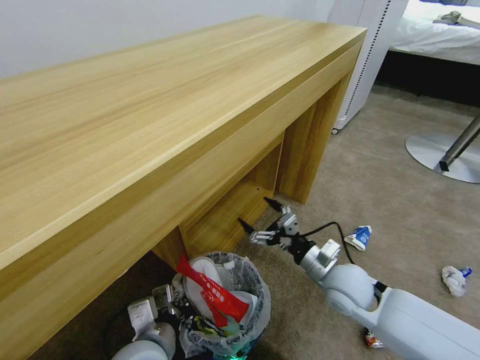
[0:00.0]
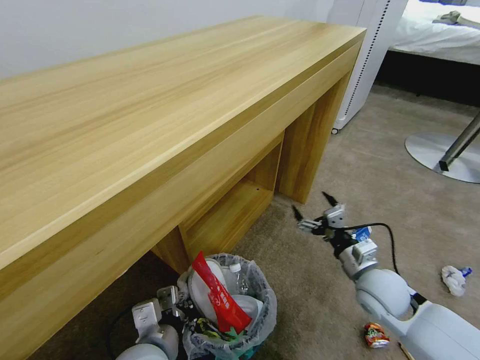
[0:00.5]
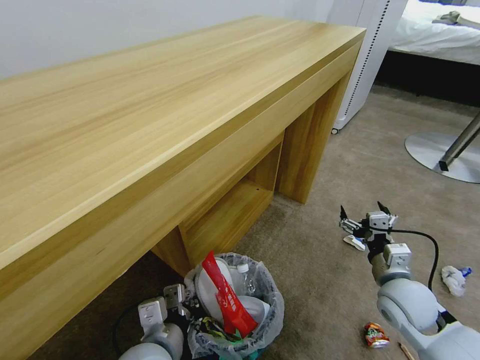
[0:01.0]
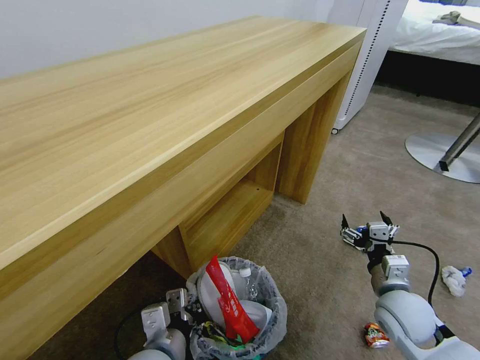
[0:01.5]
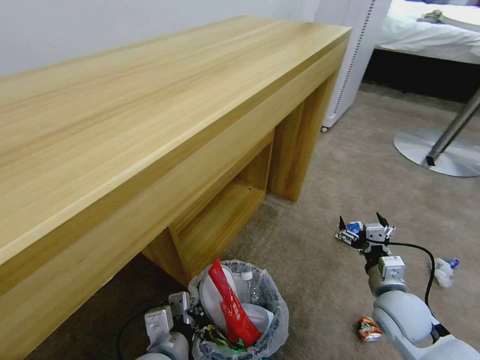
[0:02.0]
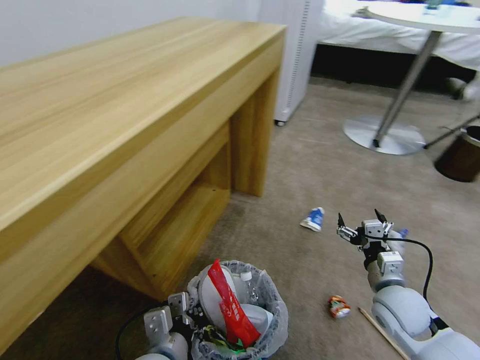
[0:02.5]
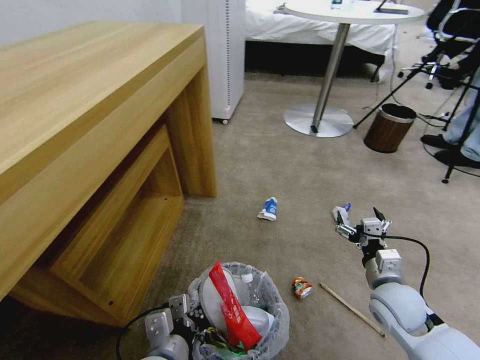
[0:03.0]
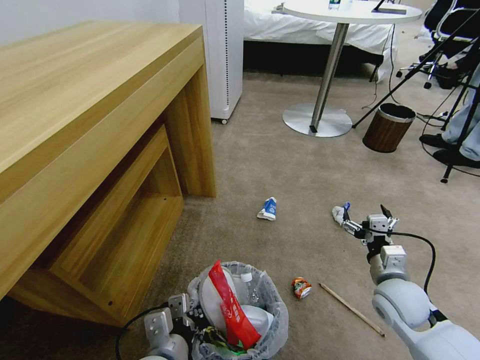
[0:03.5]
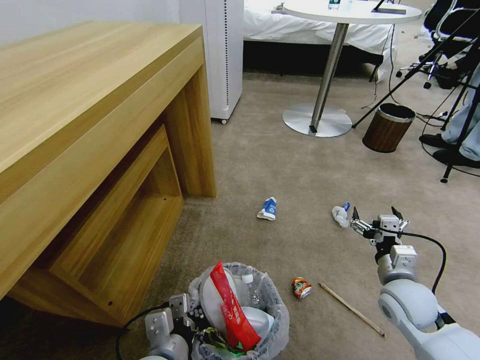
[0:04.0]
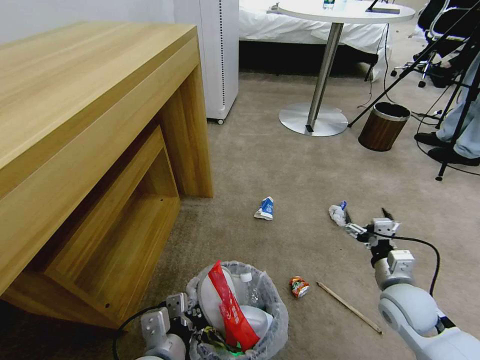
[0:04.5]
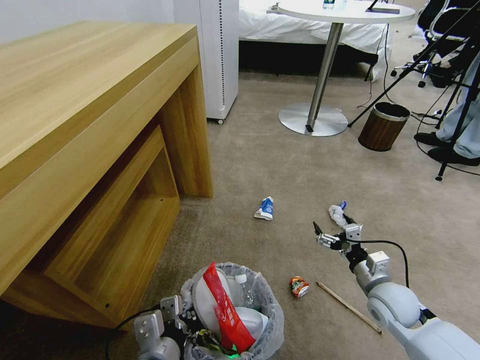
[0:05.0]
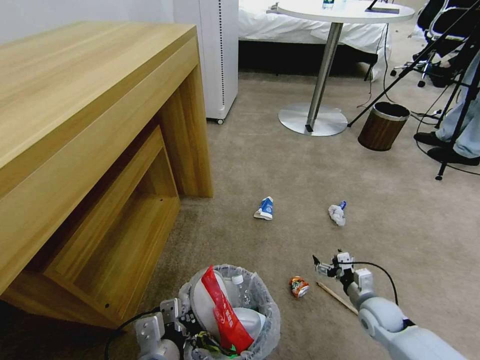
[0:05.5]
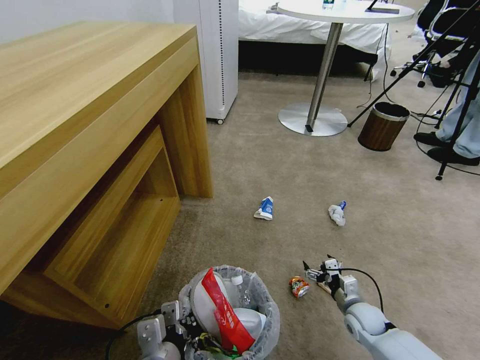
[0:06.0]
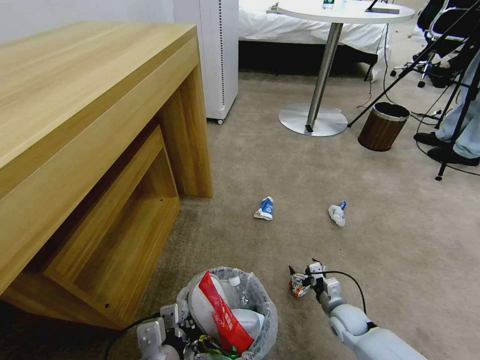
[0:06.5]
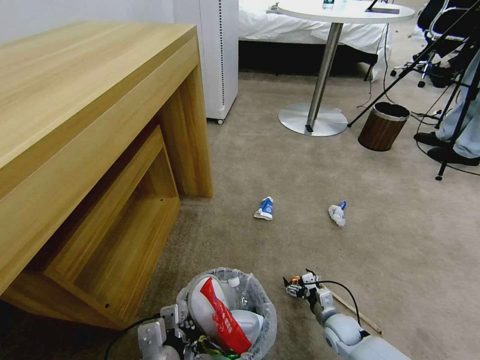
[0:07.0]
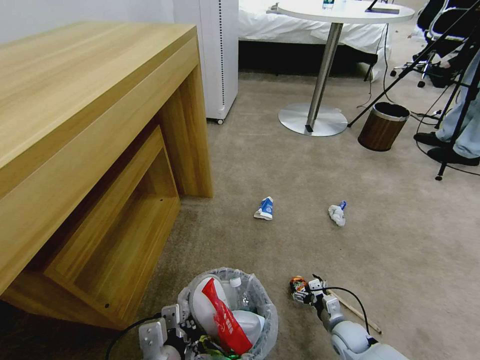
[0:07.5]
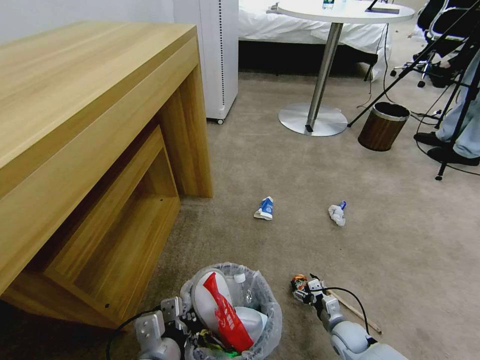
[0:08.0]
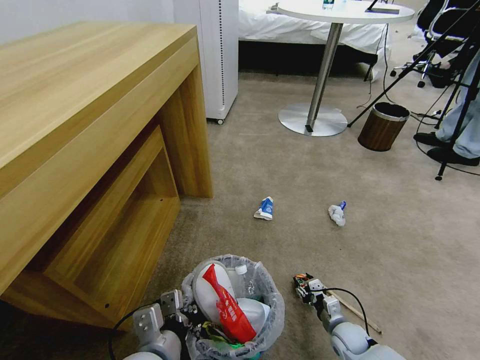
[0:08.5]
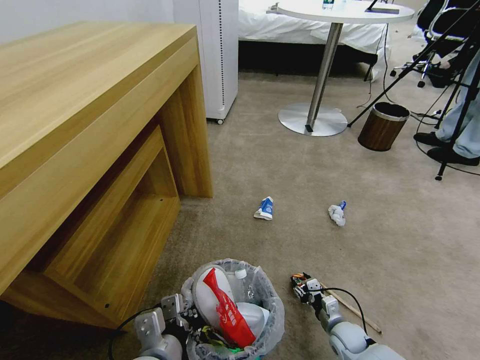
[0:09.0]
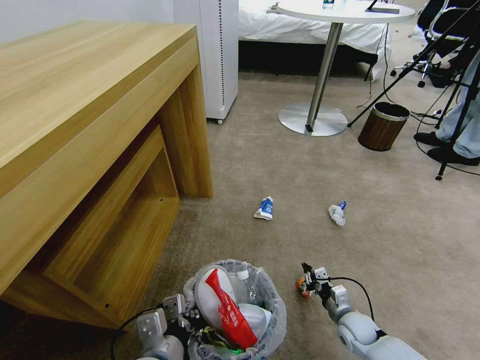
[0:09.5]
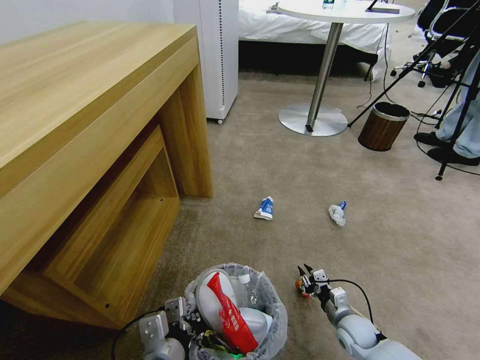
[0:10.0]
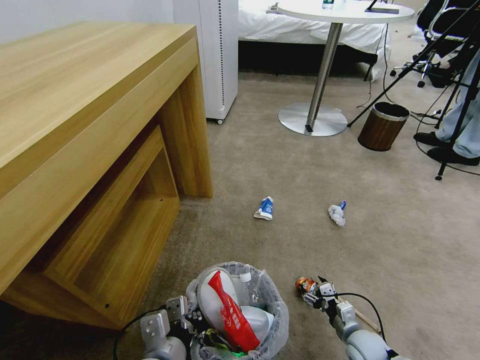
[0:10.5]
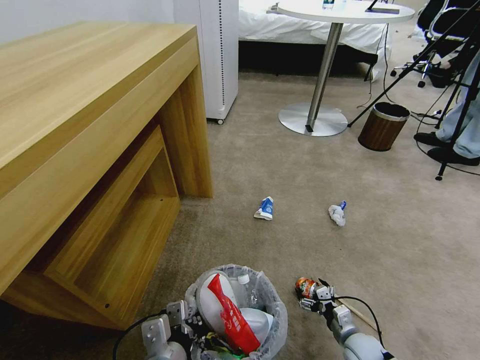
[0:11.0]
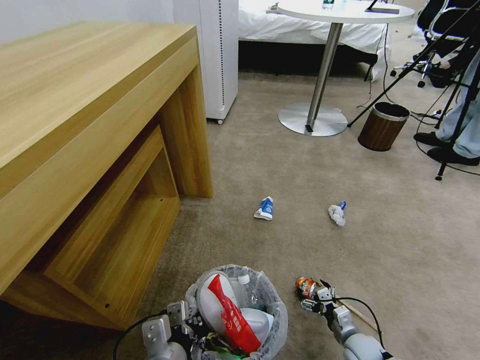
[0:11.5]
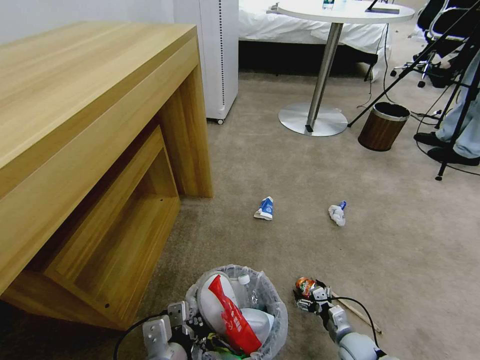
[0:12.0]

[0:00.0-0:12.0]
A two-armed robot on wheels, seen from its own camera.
Task of the whole recording: Pick up the trash bin and place the garbage on the floor into it.
0:00.0 to 0:02.0: The right gripper is displaced to the right by about 10 cm.
0:04.0 to 0:06.0: The right gripper shifts some 20 cm downward.
0:06.0 to 0:08.0: The right gripper shifts some 5 cm downward.
0:08.0 to 0:10.0: The right gripper closes its fingers.
0:10.0 to 0:12.0: The right gripper ends up about 5 cm from where it was, and opens its fingers.

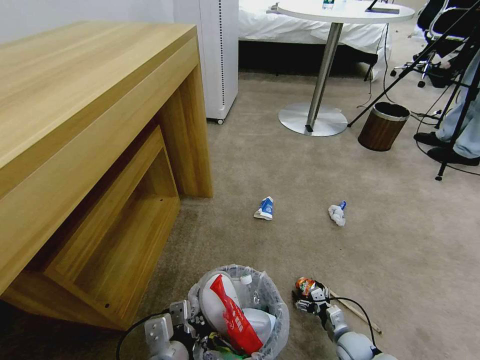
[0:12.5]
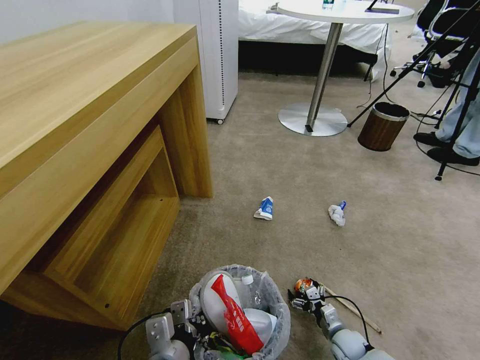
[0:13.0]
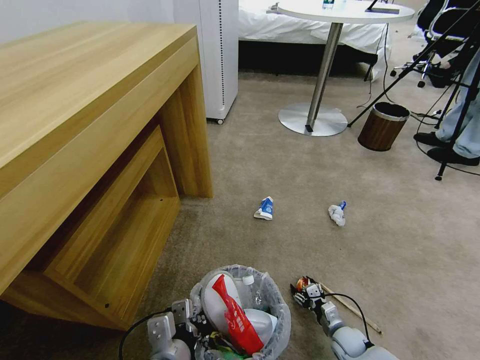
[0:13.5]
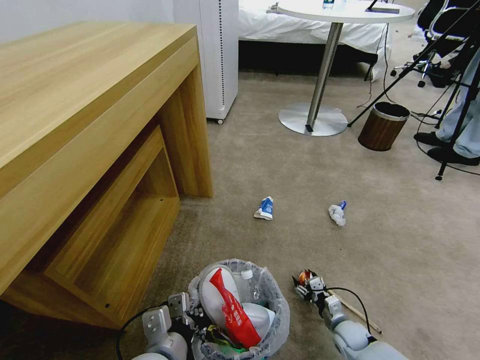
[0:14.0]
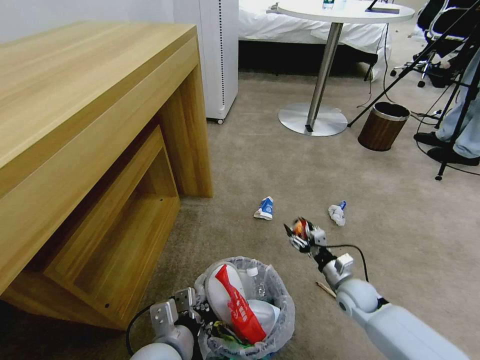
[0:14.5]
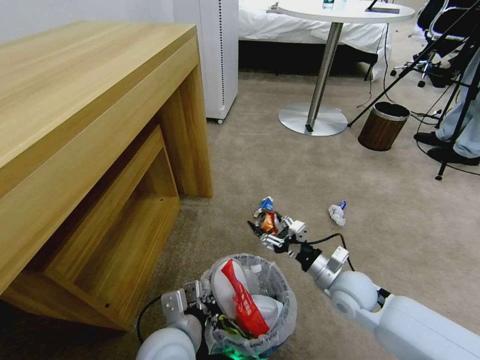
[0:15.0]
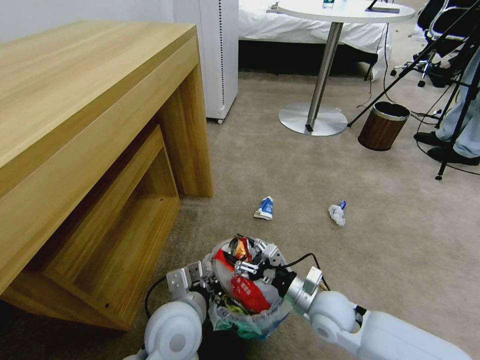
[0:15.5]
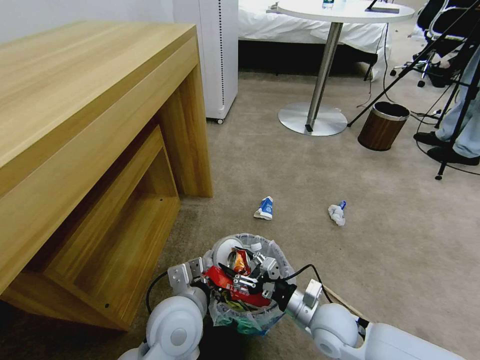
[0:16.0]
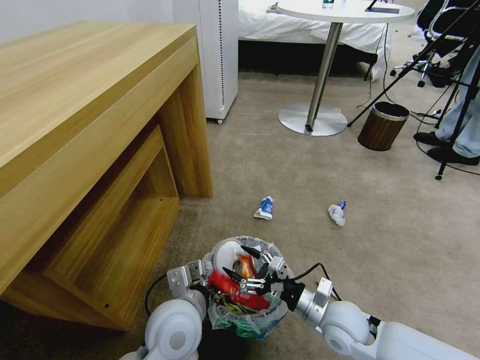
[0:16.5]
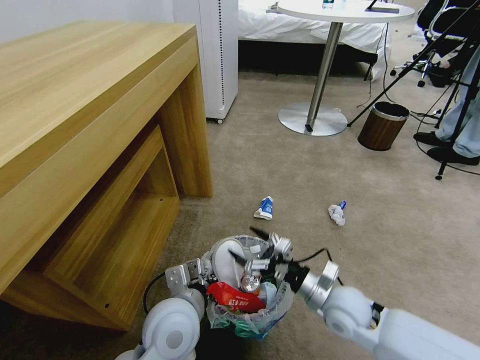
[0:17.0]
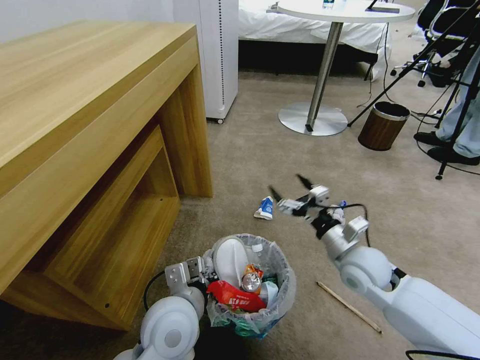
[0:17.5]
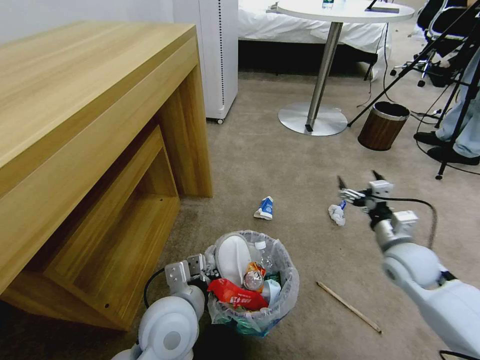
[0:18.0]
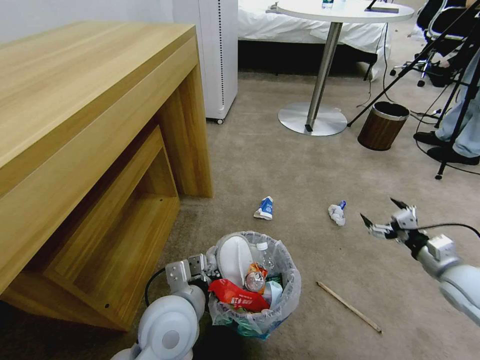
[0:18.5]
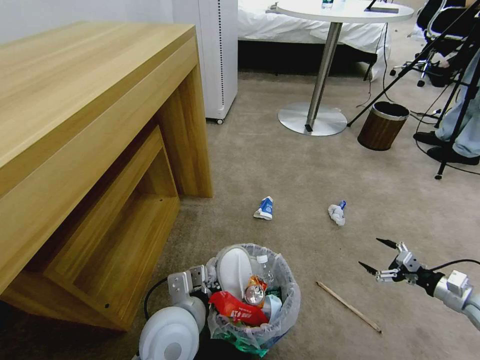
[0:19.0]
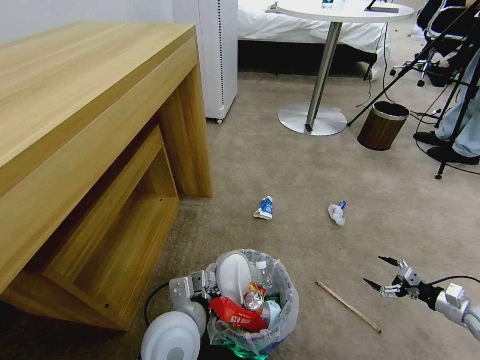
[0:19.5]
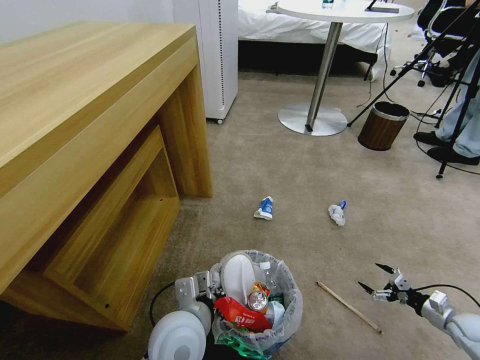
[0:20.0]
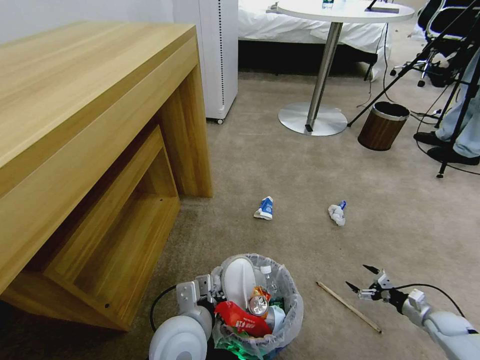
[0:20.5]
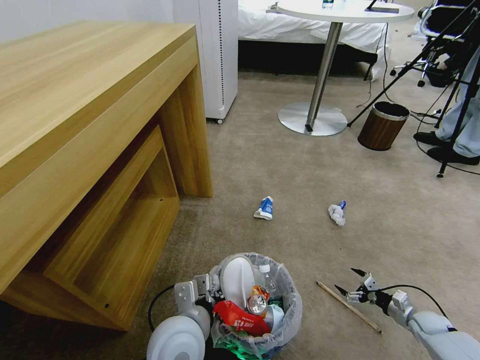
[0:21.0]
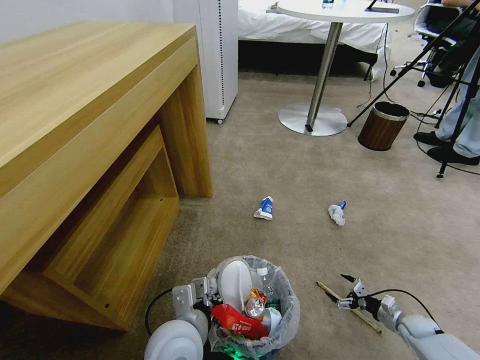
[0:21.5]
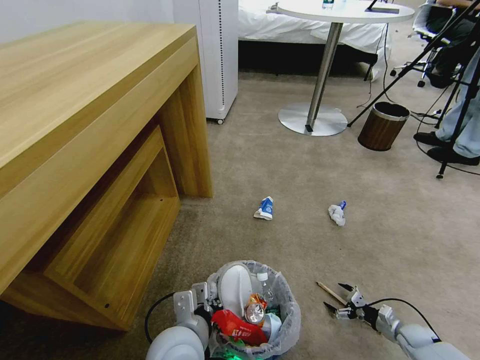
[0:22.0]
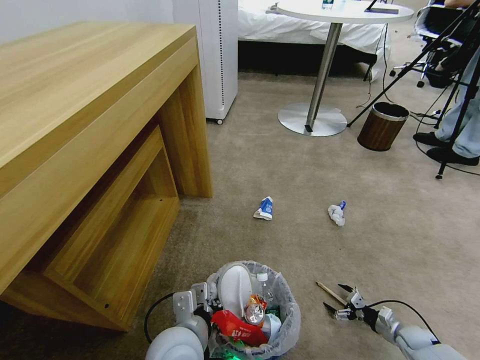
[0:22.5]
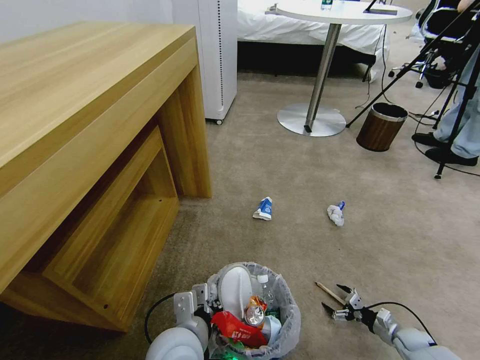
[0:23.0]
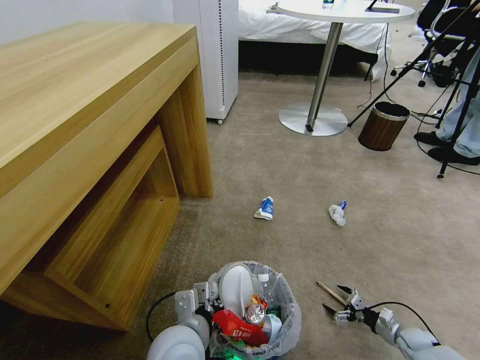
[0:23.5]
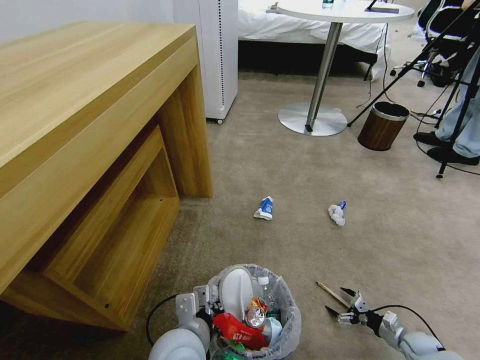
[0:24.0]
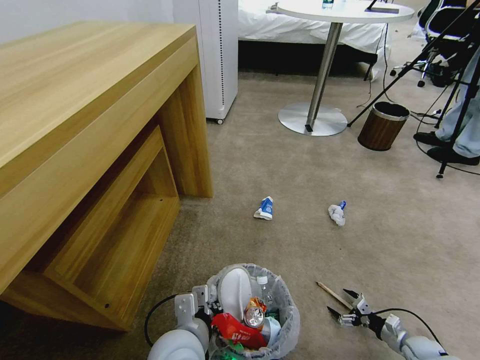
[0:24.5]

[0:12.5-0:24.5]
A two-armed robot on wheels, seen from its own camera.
Task of the whole recording: Pick up the trash bin and place the garbage on the floor into it.
0:12.5 to 0:14.5: The right gripper goes about 15 cm upward and forward.
0:14.5 to 0:16.5: The left gripper shifts approximately 5 cm forward, while the right gripper shifts some 15 cm to the left, backward and upward.
0:16.5 to 0:18.5: The right gripper travels to the right by some 25 cm.
0:18.5 to 0:20.5: The right gripper moves downward and to the right, approximately 25 cm.
0:20.5 to 0:22.5: The right gripper goes roughly 10 cm downward and to the left.
0:22.5 to 0:24.5: The grippers move only a little.

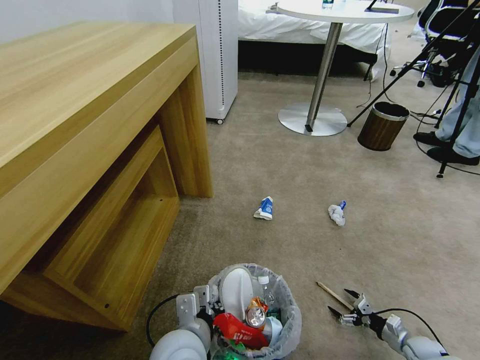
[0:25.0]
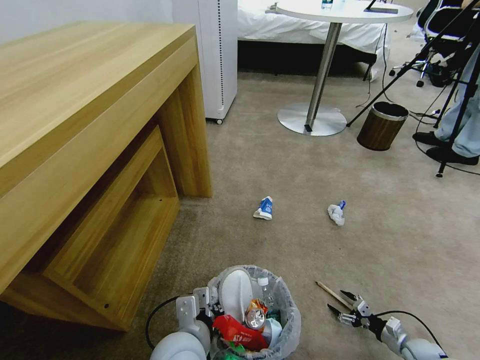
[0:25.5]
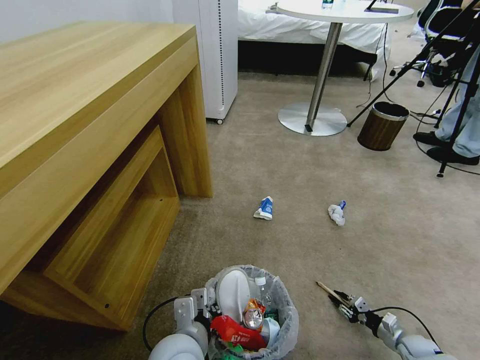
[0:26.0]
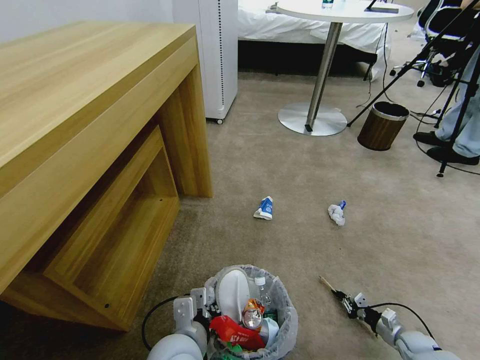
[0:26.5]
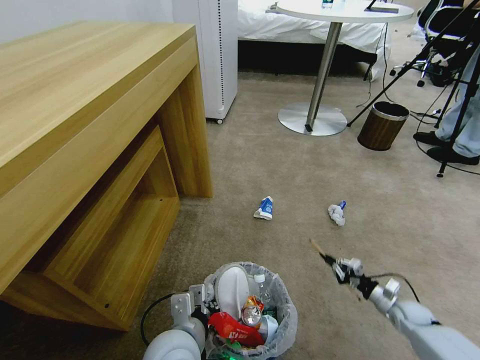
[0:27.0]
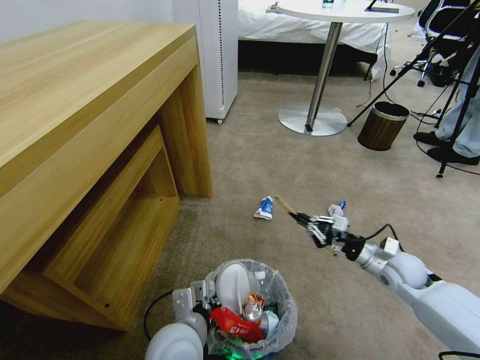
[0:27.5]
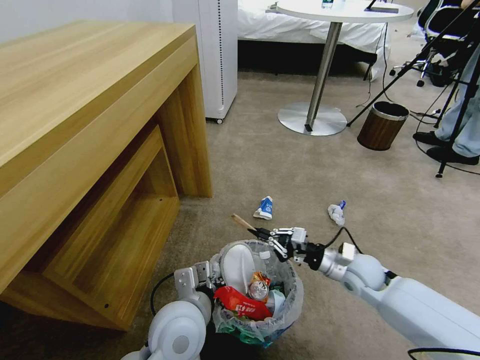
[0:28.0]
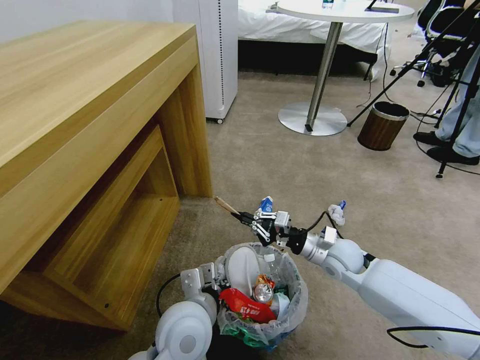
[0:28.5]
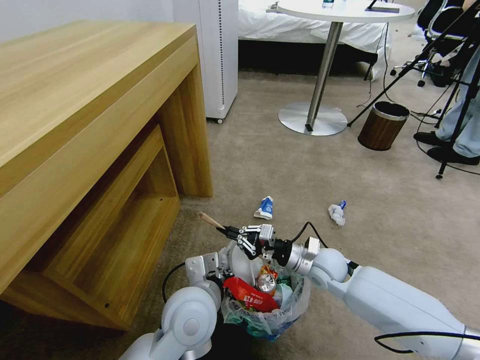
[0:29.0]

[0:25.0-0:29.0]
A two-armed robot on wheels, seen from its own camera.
Task of the whole recording: Pick up the trash bin and place the garbage on the floor into it.
0:25.0 to 0:27.0: The right gripper travels forward by some 5 cm, and closes.
0:27.0 to 0:29.0: The left gripper is displaced forward by some 5 cm, while the right gripper travels to the left and upward by approximately 35 cm.
